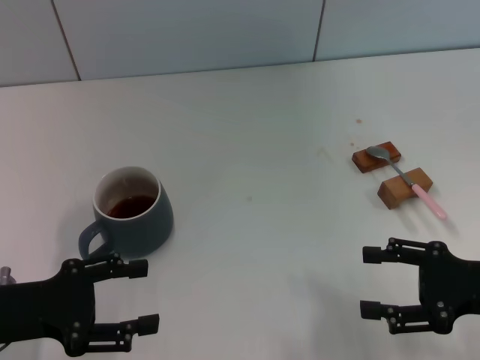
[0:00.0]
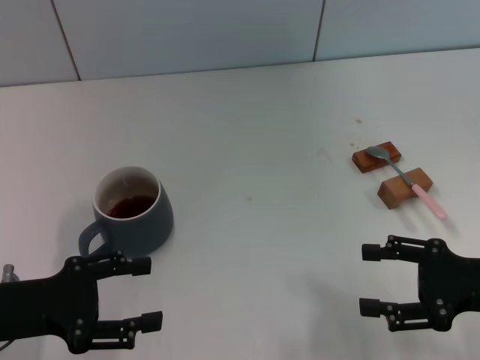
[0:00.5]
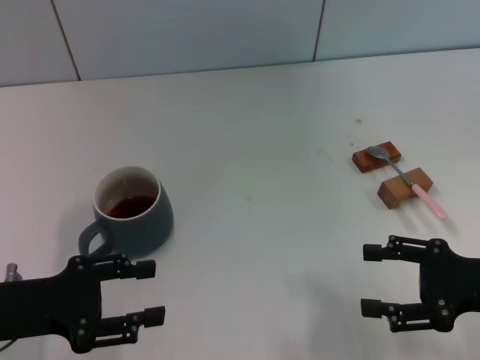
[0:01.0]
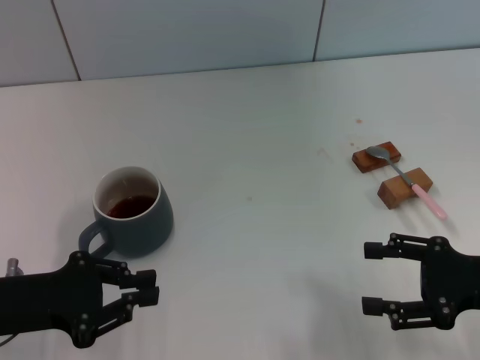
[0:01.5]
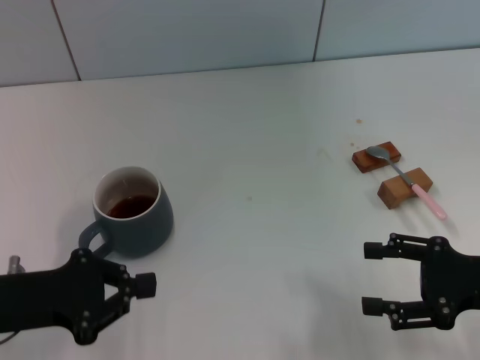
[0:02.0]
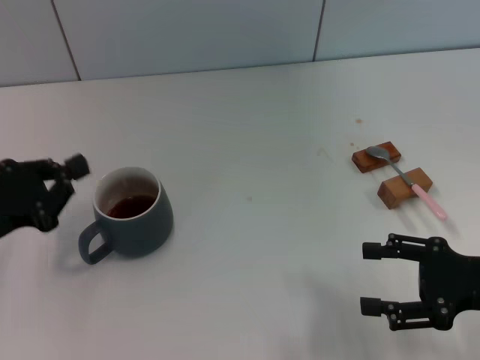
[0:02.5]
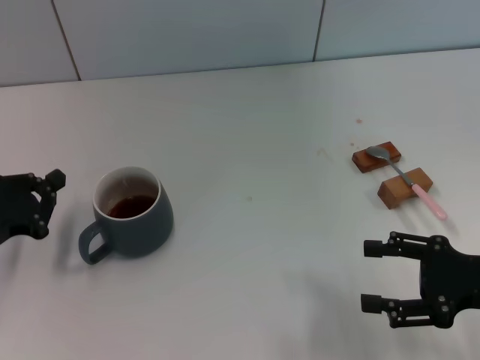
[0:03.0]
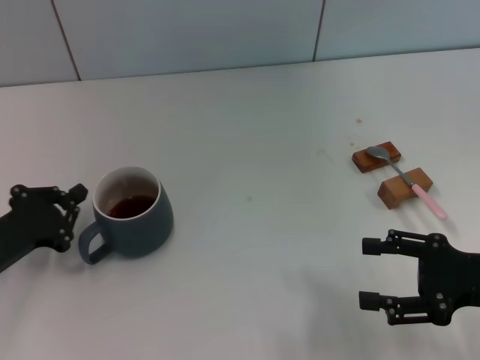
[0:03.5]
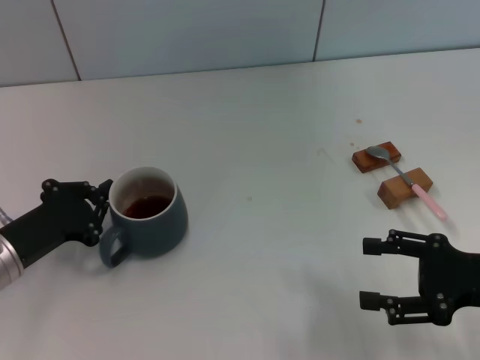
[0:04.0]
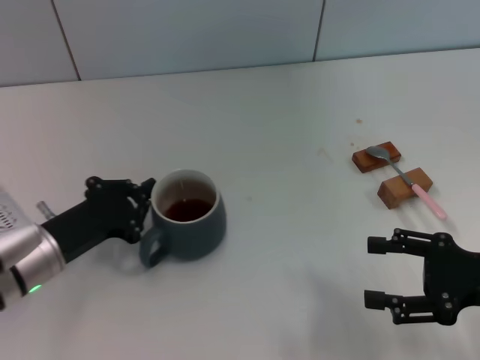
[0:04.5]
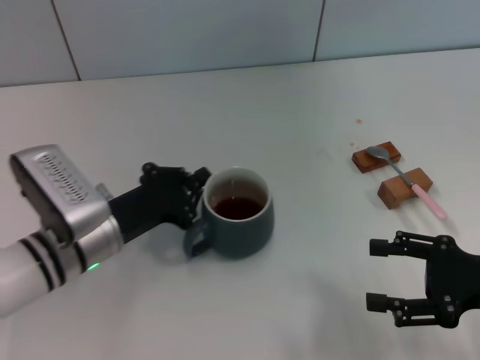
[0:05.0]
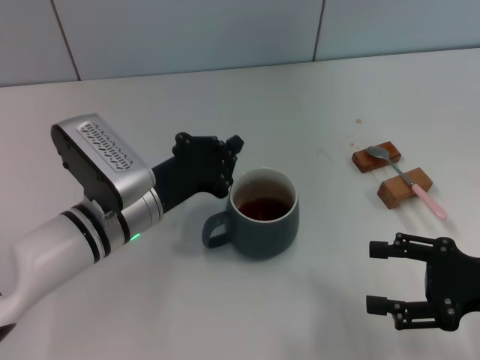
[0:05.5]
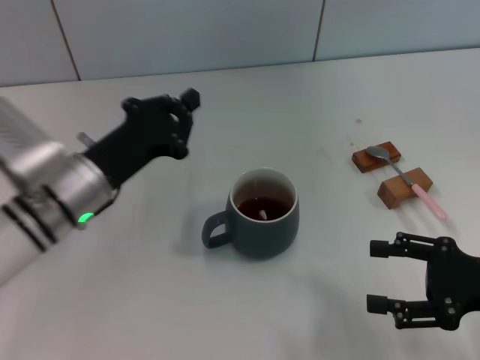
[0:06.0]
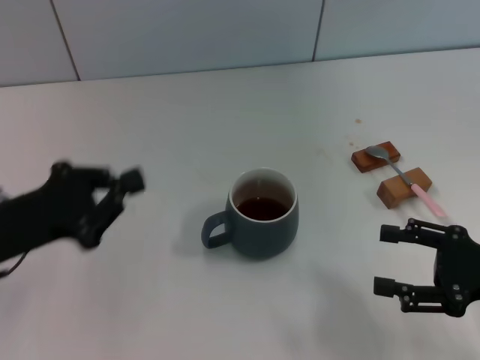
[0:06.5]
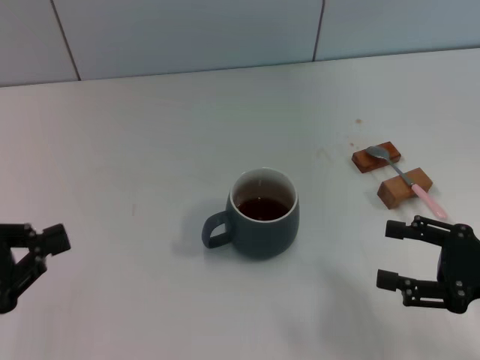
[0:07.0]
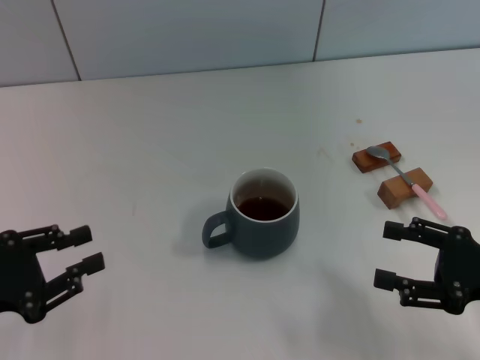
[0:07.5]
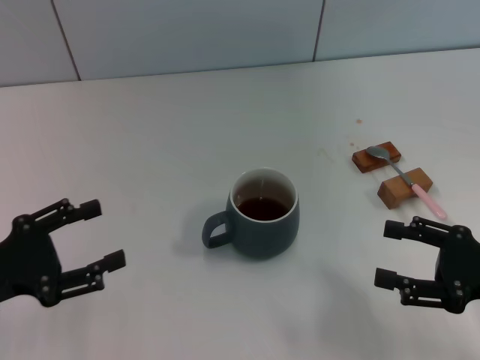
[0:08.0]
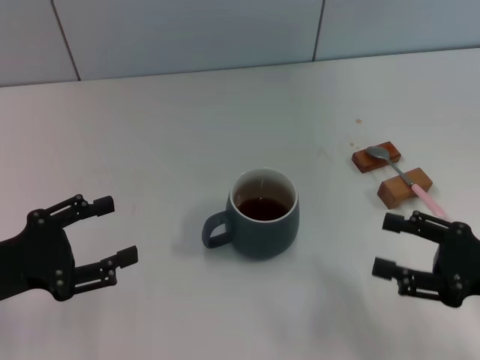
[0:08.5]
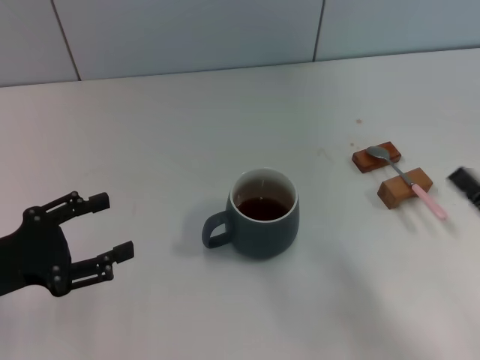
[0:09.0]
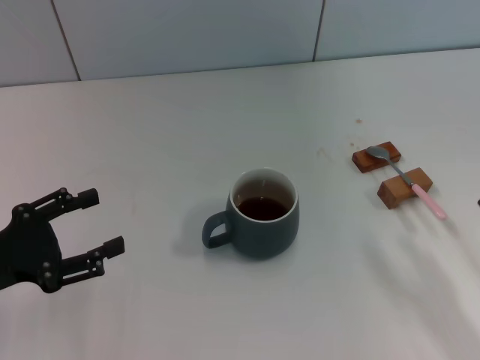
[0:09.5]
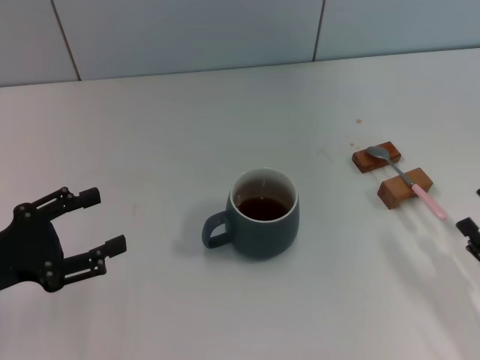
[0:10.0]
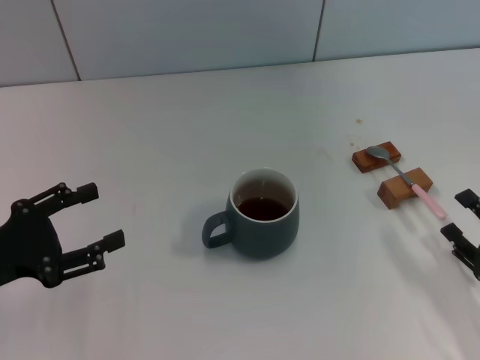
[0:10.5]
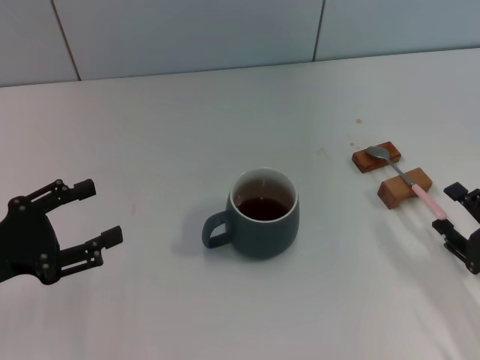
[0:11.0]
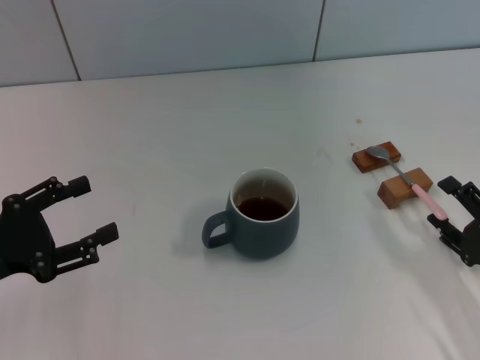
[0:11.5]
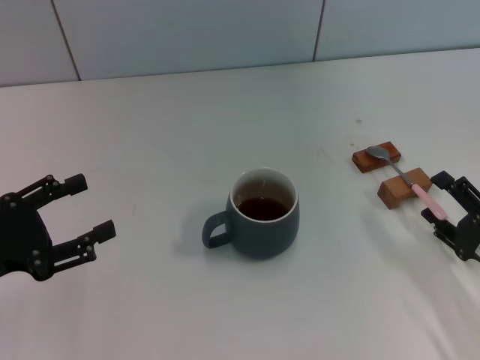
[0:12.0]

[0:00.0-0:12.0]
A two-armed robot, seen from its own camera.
Task of the whole recording: Move the grey cup to the center, lift the pink spoon, stir it three times in the cup, and put the spoon into the cup.
Step, 0:00.0 to 0:05.5: Move the cup with coffee to the center of view with the left gripper.
0:00.0 to 0:02.0: The left gripper closes up.
0:02.0 to 0:04.0: The left gripper is displaced downward by some 5 cm.
0:04.0 to 0:06.0: The left gripper shifts some 10 cm to the right.
0:06.0 to 0:08.0: The left gripper heads to the left and backward, covering roughly 15 cm, and opens up.
0:08.0 to 0:10.0: The right gripper moves downward and backward, some 10 cm.
0:10.0 to 0:12.0: The grippers move only a little.

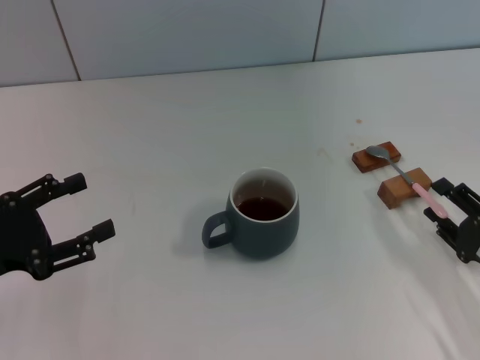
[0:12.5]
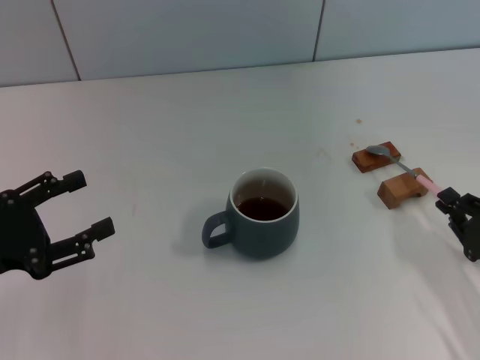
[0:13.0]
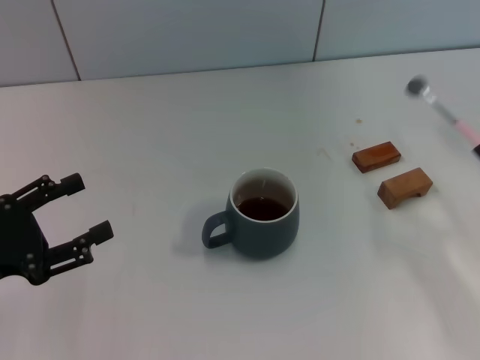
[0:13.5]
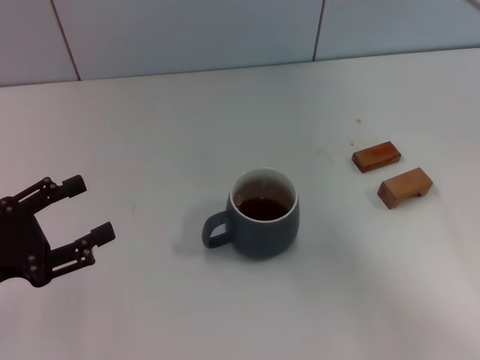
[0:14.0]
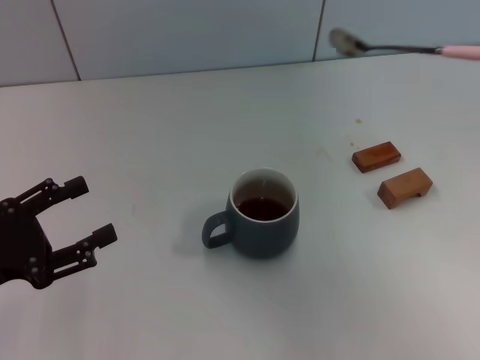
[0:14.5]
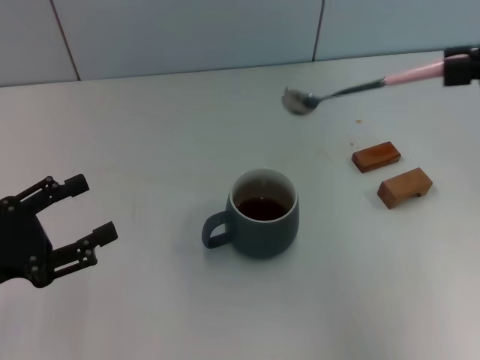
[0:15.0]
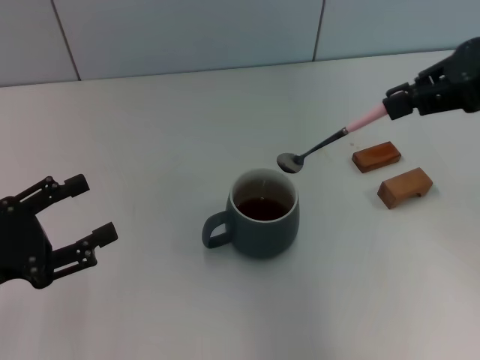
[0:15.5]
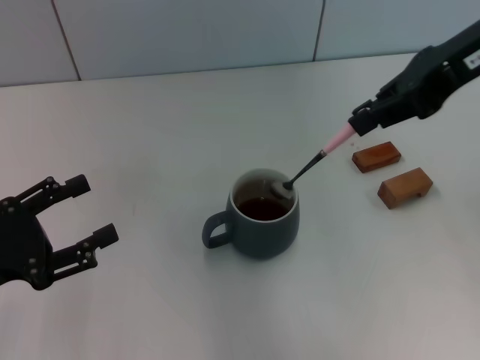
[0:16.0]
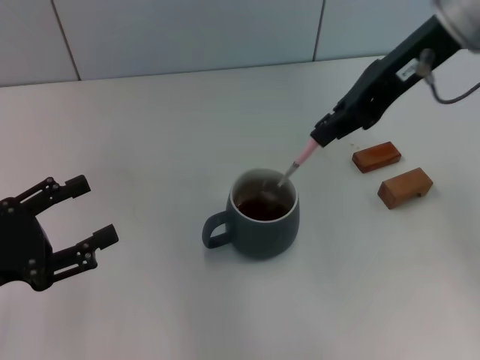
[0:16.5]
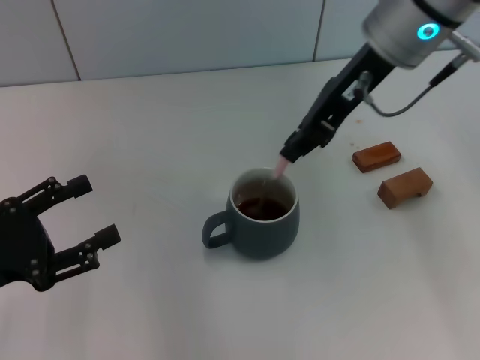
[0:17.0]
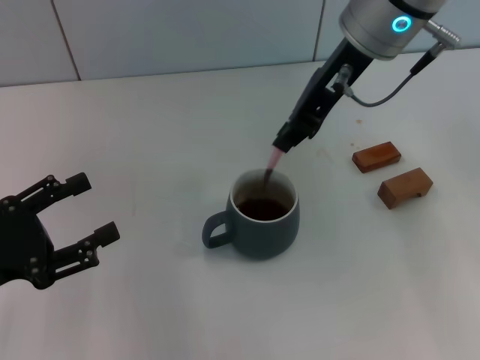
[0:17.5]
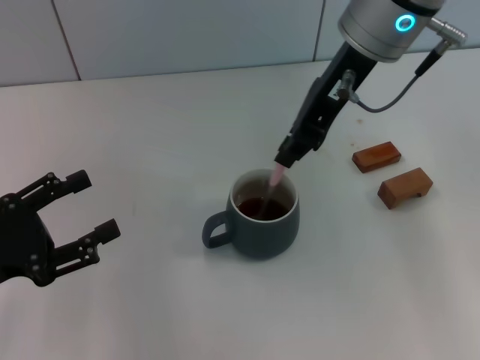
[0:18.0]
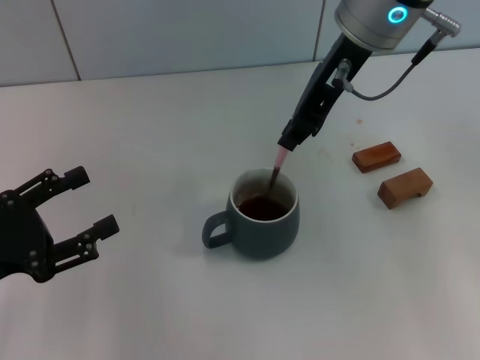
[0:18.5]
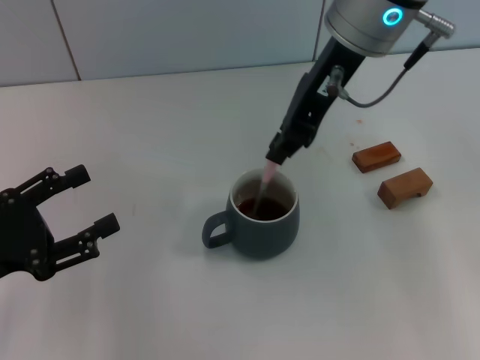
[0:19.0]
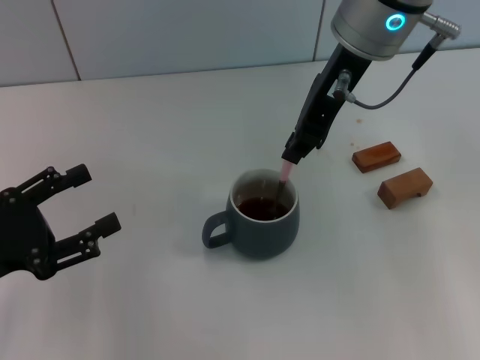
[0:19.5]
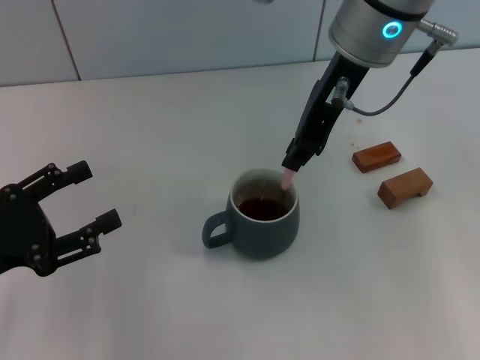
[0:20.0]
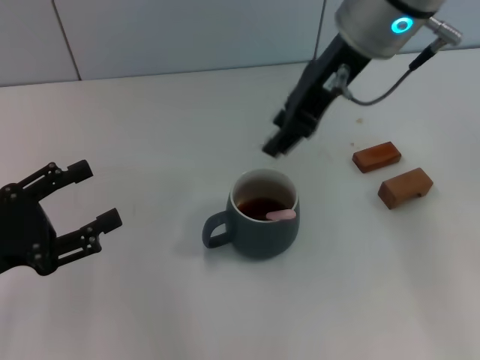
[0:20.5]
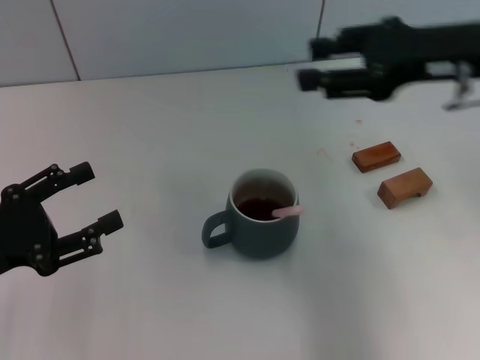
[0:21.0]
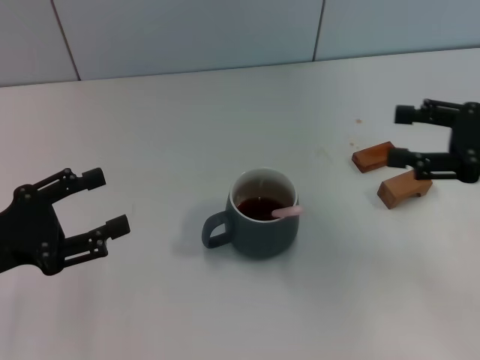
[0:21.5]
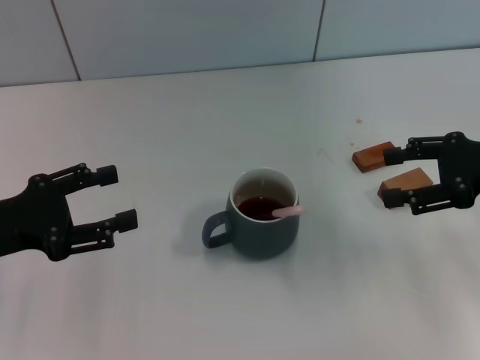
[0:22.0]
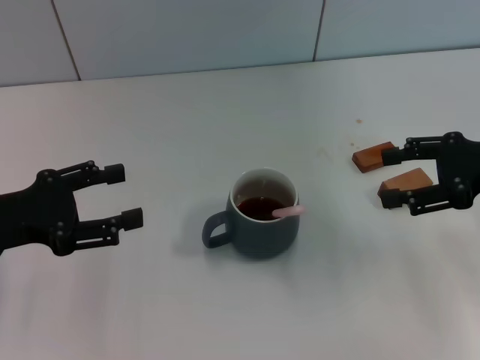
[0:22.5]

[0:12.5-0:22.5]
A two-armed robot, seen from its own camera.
Task of the whole recording: Move the grey cup to the center, lift the pink spoon, stir it three times in the cup, and put the spoon into the cup.
Step, 0:13.5 to 0:20.0: Stir the coffee in the cup with the right gripper.
0:12.5 to 0:14.5: The right gripper shifts approximately 25 cm upward, and closes.
0:14.5 to 0:16.5: The right gripper heads to the left and forward, covering some 20 cm.
0:16.5 to 0:18.5: The right gripper moves to the left, some 5 cm.
0:18.5 to 0:20.5: The right gripper opens.
0:20.5 to 0:22.5: The right gripper moves to the right and downward, roughly 25 cm, and opens its fingers; the left gripper shifts by some 5 cm.

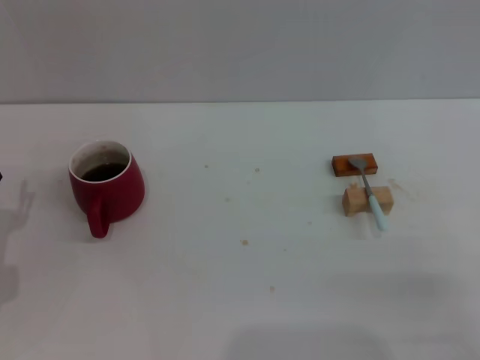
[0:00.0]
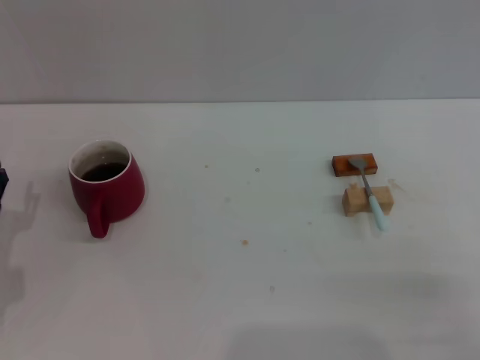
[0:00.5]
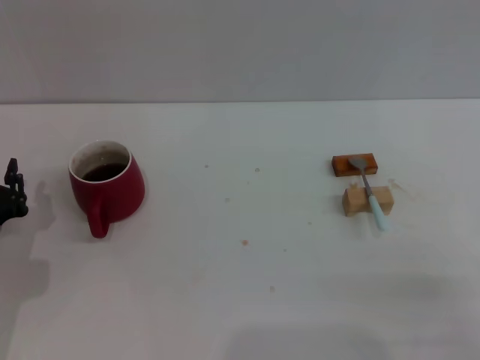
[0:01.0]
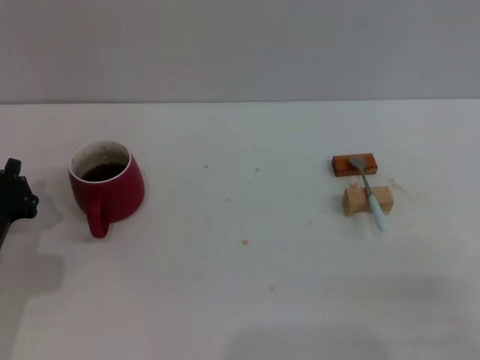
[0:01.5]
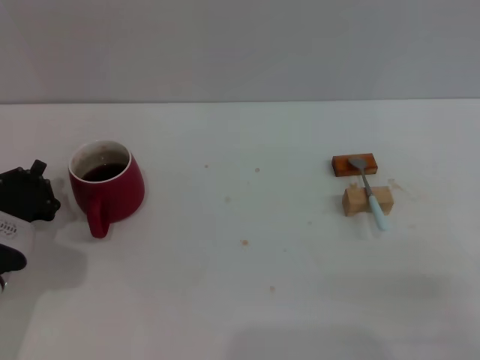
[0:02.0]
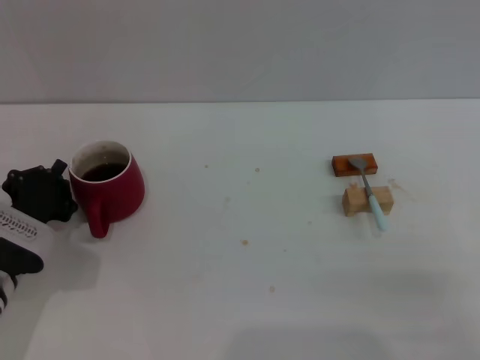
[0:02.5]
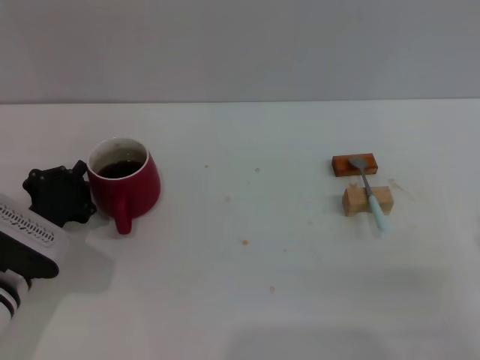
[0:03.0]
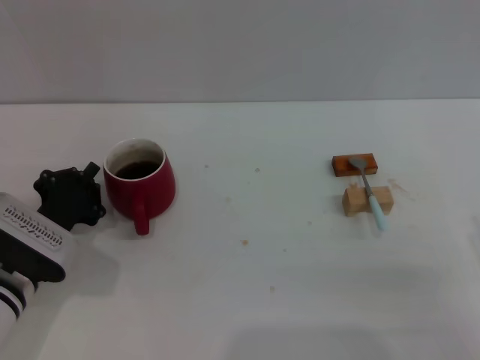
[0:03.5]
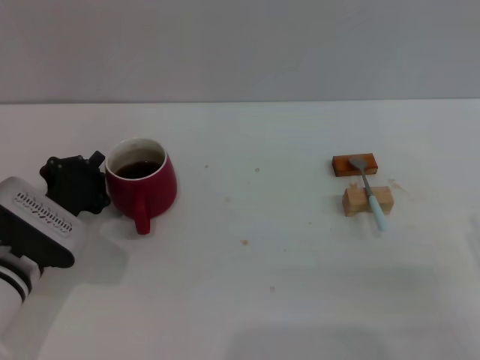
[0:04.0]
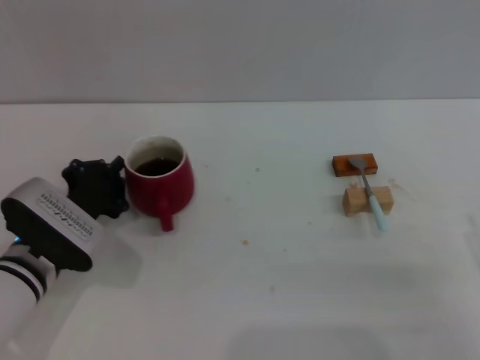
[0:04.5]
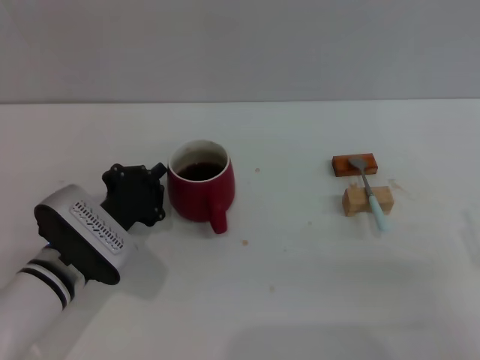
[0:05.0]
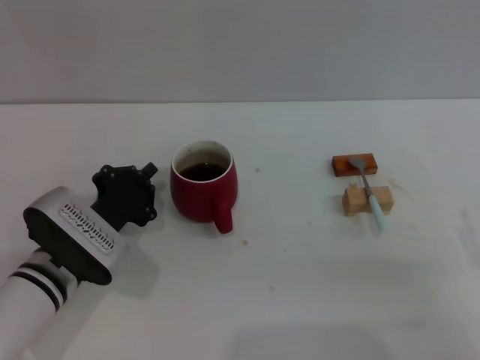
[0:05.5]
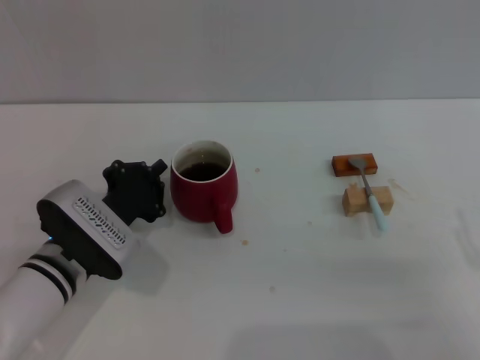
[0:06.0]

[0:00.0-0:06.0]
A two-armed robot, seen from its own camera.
Task of the whole recording: Move the red cup to the center, lift the blue spoon, stir it three times in the cup, and put the spoon into the cup.
0:00.0 to 0:02.0: The left gripper closes its fingers.
0:02.0 to 0:04.0: The grippers move only a little.
0:04.0 to 0:06.0: The grippers move only a little.
